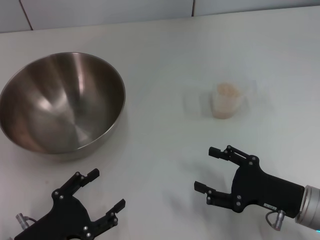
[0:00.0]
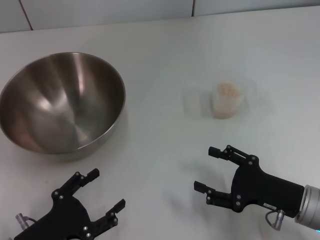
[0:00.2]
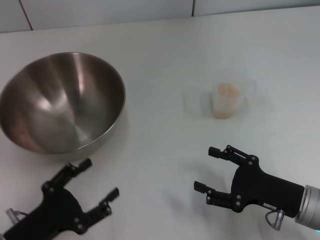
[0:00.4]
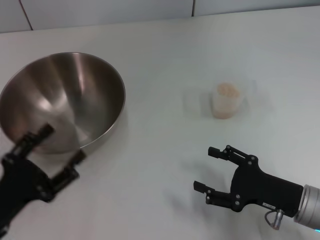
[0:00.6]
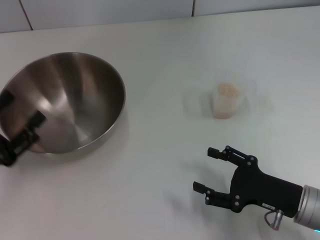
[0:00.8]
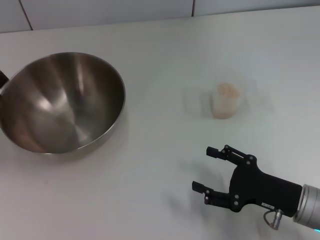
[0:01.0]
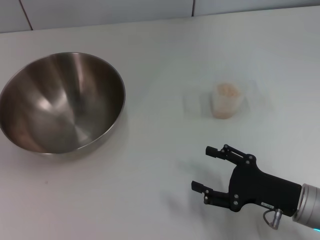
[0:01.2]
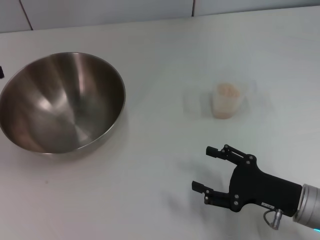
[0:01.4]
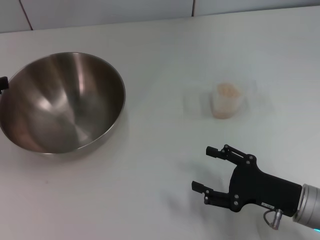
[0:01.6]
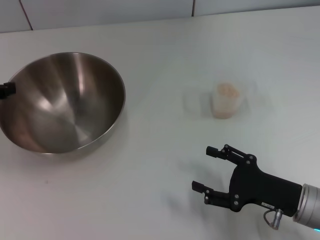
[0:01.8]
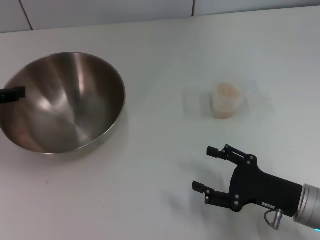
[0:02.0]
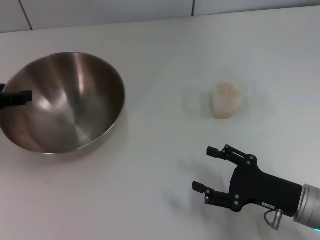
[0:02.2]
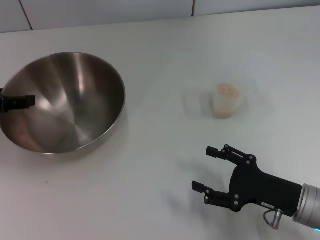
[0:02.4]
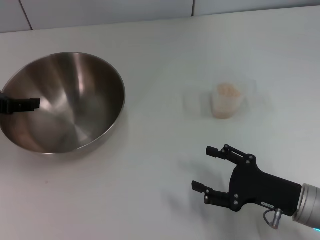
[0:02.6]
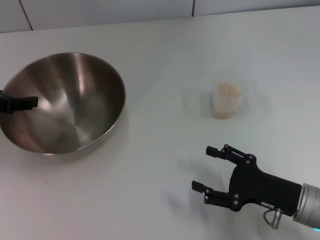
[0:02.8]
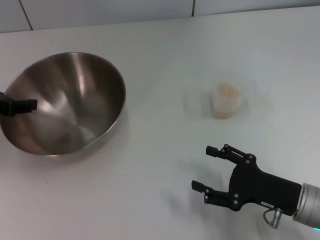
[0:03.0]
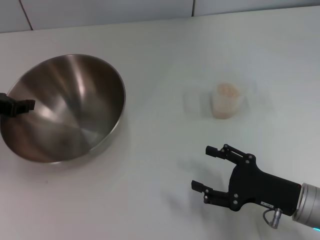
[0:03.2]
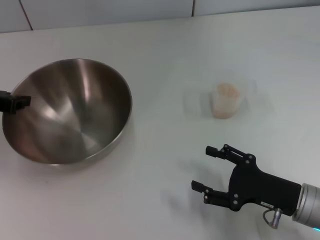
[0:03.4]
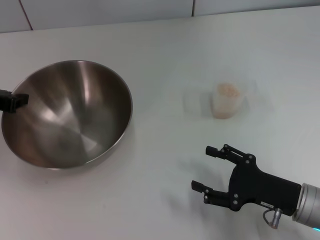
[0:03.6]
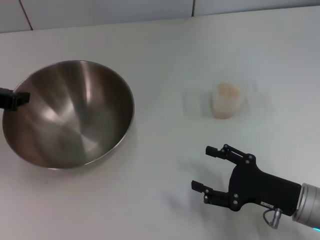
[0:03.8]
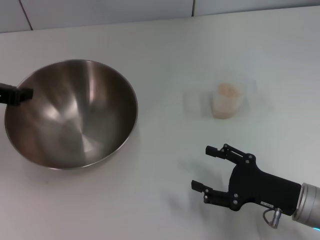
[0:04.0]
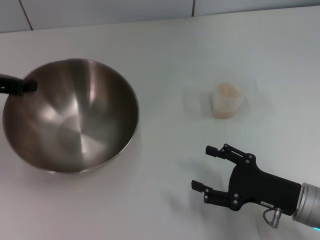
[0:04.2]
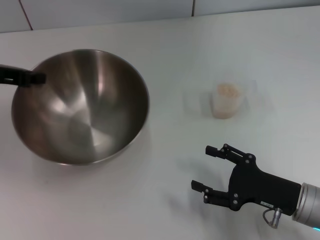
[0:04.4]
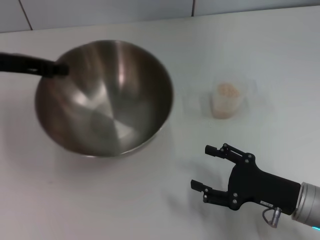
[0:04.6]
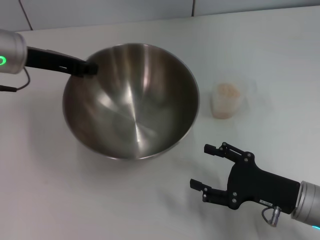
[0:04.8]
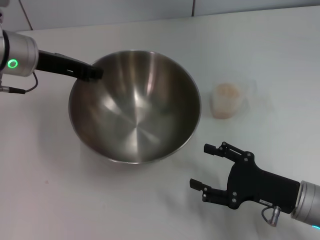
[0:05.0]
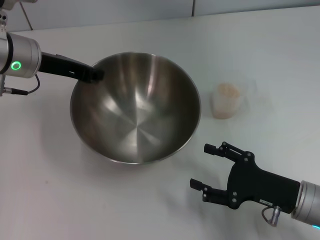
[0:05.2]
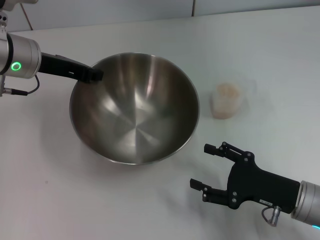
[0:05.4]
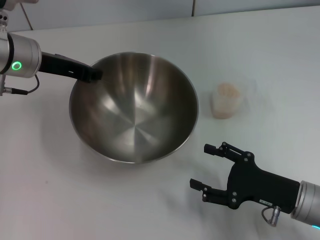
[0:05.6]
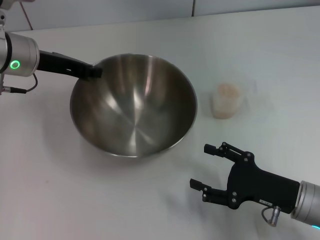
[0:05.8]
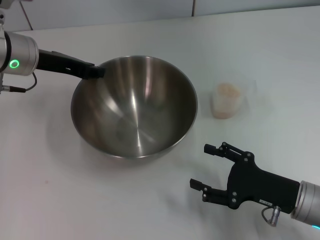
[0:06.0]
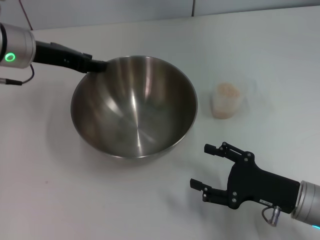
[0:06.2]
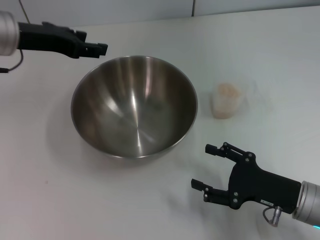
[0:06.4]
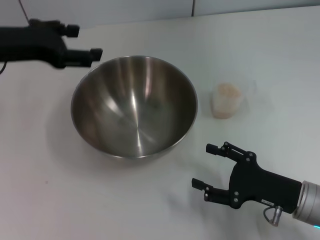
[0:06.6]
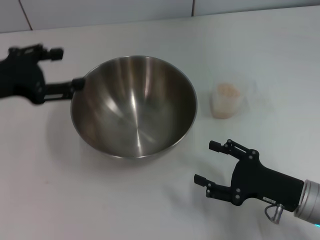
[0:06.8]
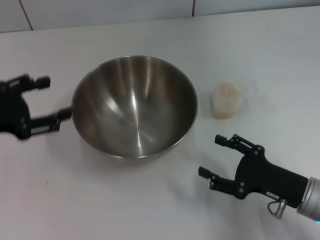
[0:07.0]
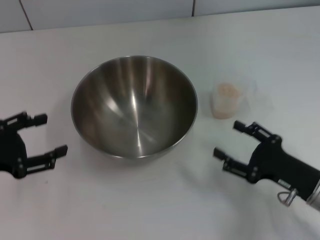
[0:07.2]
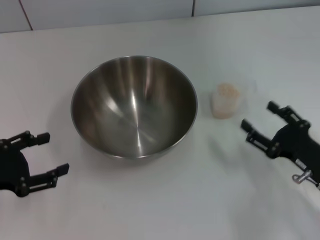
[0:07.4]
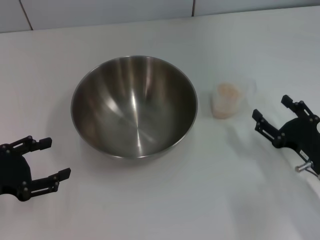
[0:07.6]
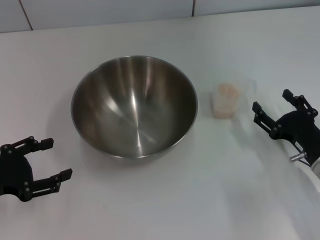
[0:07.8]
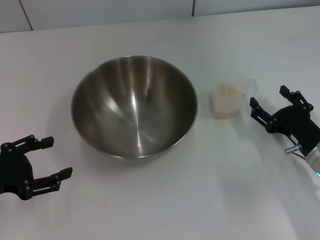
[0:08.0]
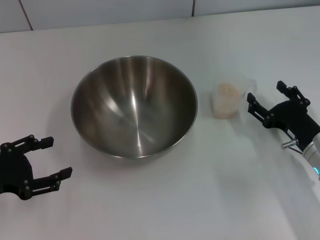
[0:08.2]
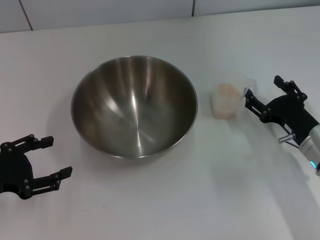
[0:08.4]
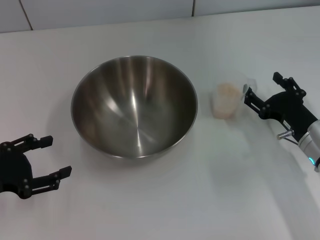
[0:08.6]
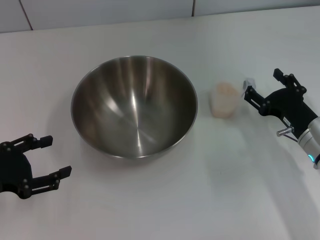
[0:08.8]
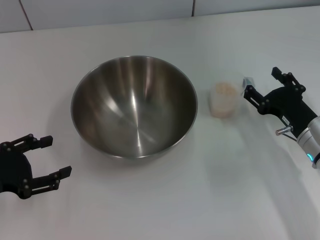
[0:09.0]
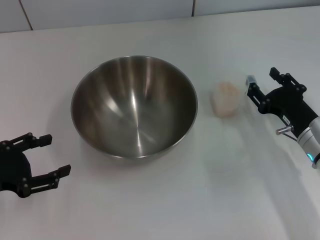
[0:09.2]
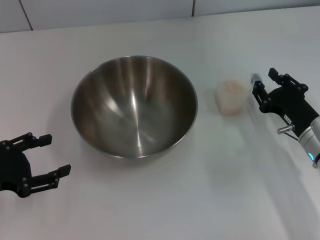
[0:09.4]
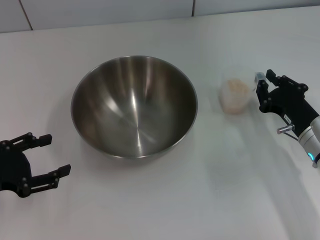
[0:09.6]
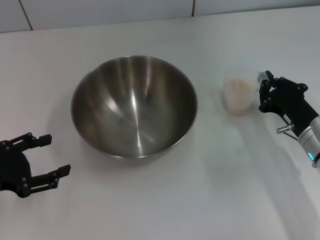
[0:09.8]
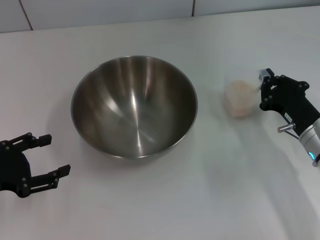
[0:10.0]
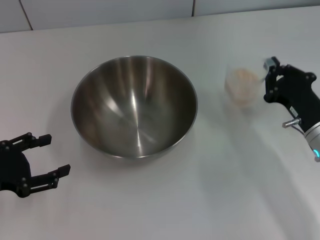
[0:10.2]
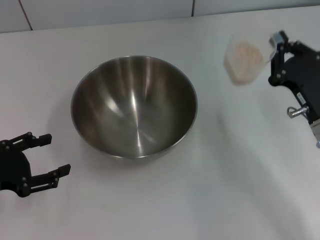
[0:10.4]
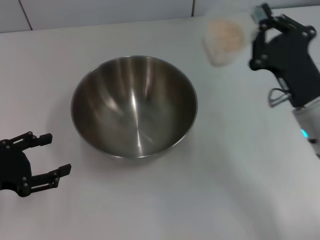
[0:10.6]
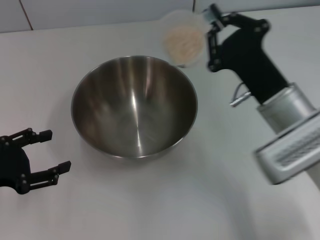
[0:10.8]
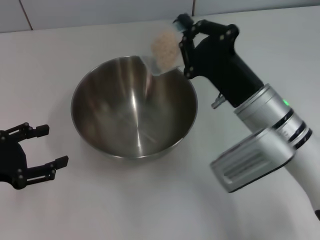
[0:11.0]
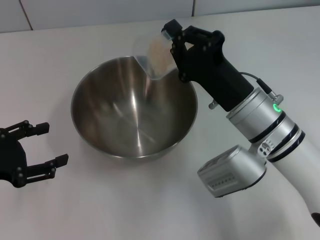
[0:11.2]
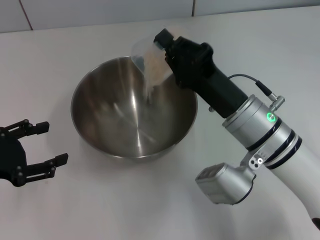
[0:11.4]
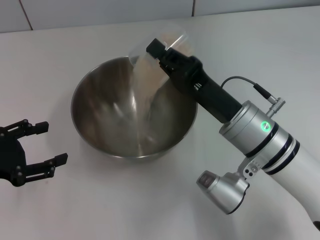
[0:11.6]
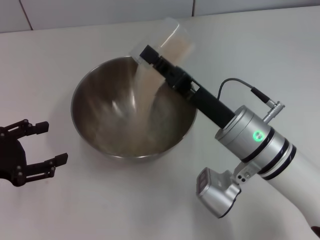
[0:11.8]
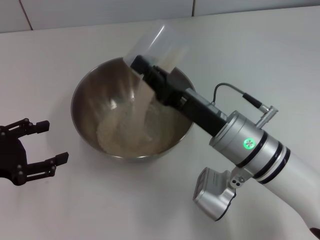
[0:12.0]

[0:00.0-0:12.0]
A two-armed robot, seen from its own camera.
Task of the whole recording: Place the bowl in the middle of the table with one hand and pour the rice from the grain cup into it with the other hand.
Step, 0:00.0 to 0:04.4: Pick up the bowl with the left gripper.
Step, 0:04.6 to 0:06.4: Place the bowl in the center of view with the left gripper.
Step, 0:06.6 to 0:10.6: Pick up the cup with rice in it with the right gripper.
0:00.0 to 0:01.6: The left gripper is displaced forward, upward and to the left by roughly 25 cm.
0:01.6 to 0:03.0: The left gripper shifts by some 5 cm.
0:03.0 to 0:04.4: The left gripper ends up roughly 5 cm from where it was, and closes its fingers.
0:04.4 to 0:06.0: The left gripper moves to the right, some 10 cm.
0:06.0 to 0:07.6: The left gripper is displaced backward, to the left and downward by about 25 cm, and opens its fingers.
0:07.6 to 0:09.0: The right gripper moves forward, some 5 cm.
0:09.0 to 0:10.4: The right gripper closes its fingers.
0:10.4 to 0:12.0: The right gripper is displaced to the left by some 15 cm.

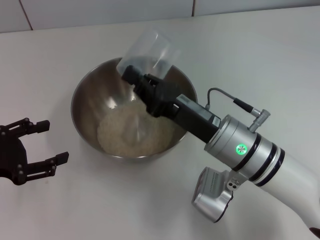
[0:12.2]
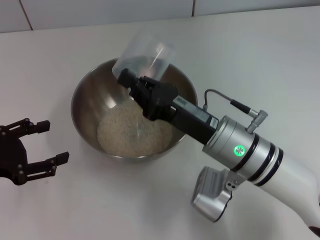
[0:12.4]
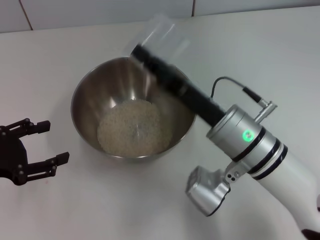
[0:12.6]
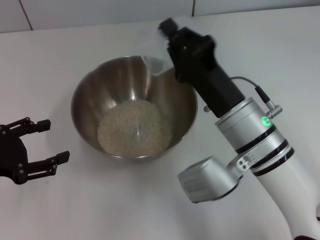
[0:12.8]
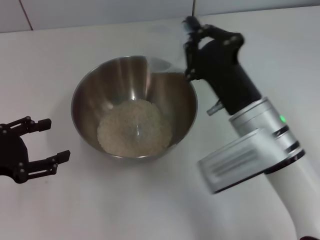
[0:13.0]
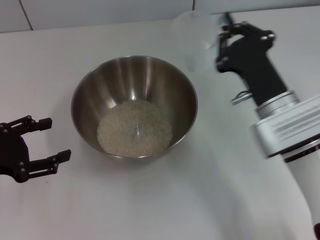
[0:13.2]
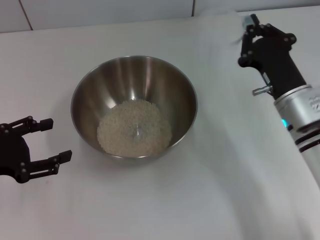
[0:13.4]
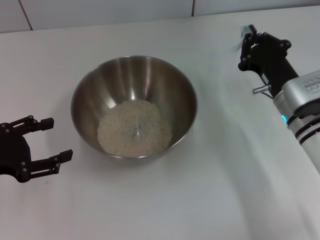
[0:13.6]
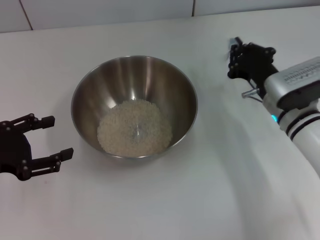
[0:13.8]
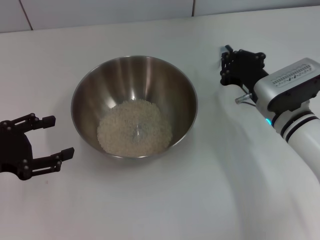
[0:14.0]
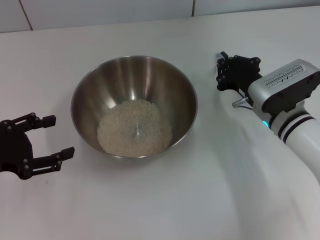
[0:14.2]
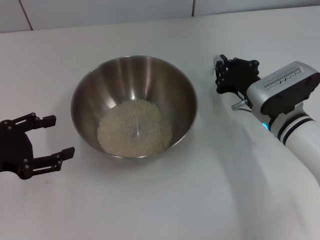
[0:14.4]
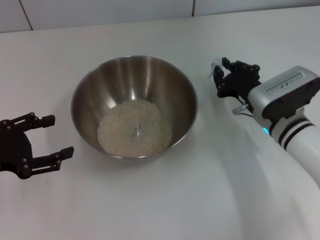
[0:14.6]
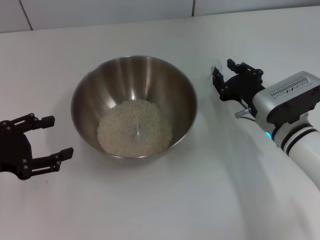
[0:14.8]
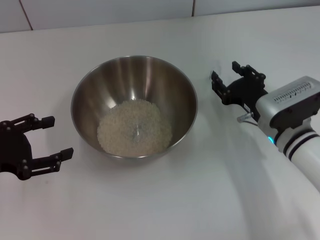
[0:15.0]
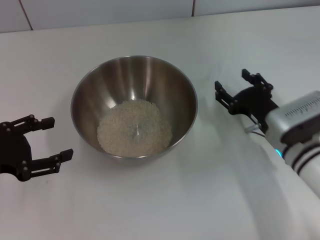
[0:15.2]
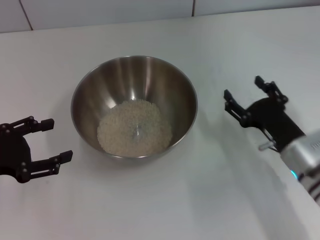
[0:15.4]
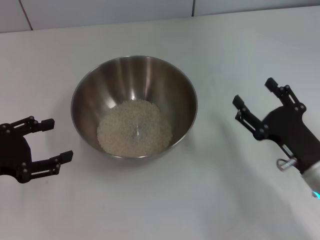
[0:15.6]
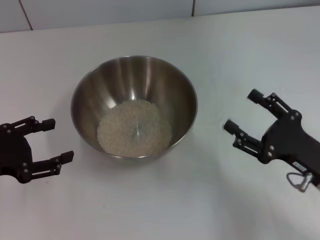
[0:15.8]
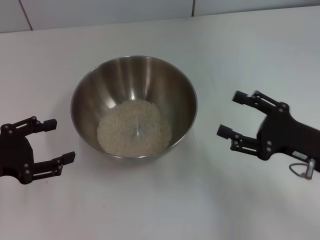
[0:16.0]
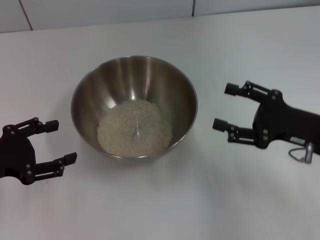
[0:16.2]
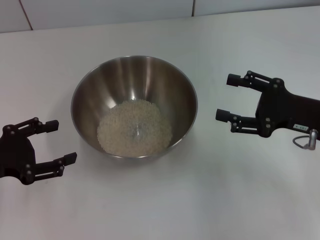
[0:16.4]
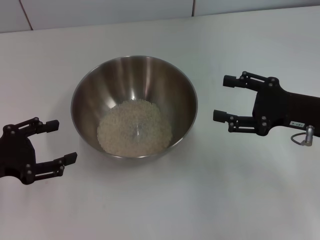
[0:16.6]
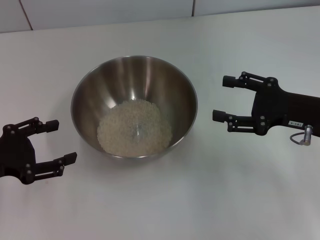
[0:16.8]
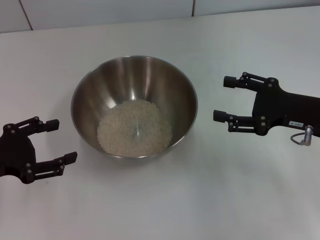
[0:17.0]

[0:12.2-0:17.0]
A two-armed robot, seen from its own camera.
Task of the whole recording: Place the bowl in the middle of the table with one hand and pour the rice from the grain cup into it with the other hand.
Step, 0:13.0 to 0:15.4: Place the cup on the table with the right gripper.
0:12.2 to 0:13.8: The right gripper is displaced to the right and forward by roughly 10 cm.
0:13.8 to 0:15.4: The right gripper is displaced backward by roughly 10 cm, and opens.
0:15.4 to 0:17.0: The right gripper shifts some 10 cm upward and to the right.

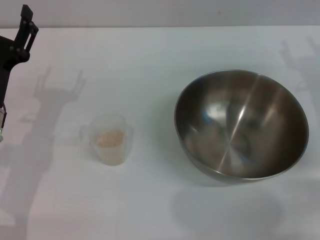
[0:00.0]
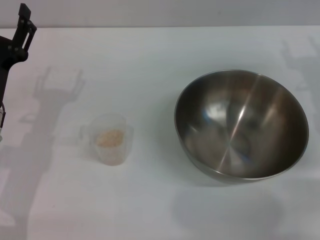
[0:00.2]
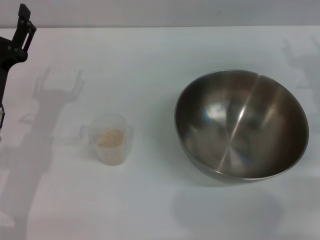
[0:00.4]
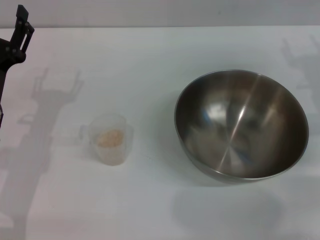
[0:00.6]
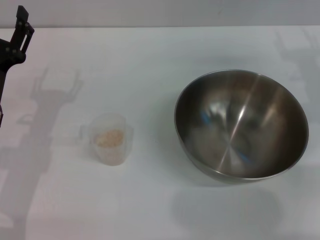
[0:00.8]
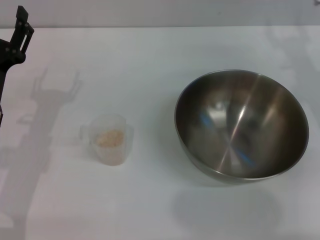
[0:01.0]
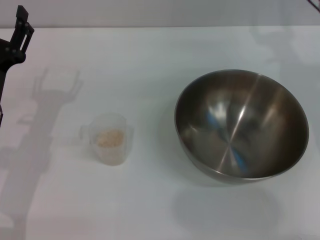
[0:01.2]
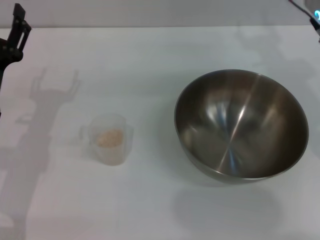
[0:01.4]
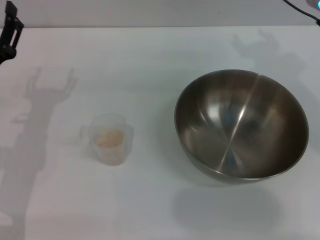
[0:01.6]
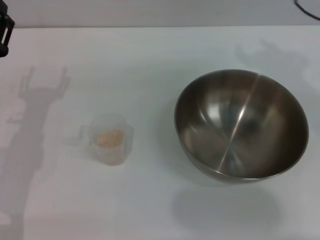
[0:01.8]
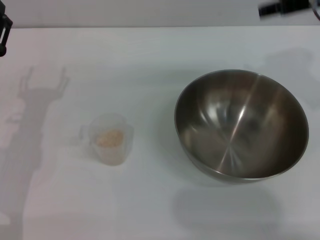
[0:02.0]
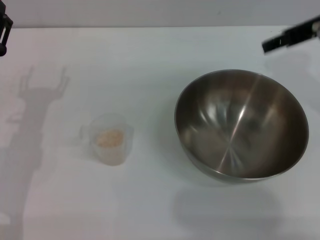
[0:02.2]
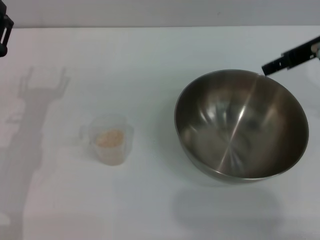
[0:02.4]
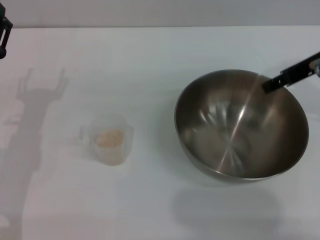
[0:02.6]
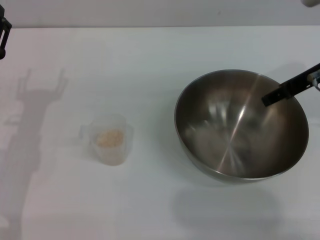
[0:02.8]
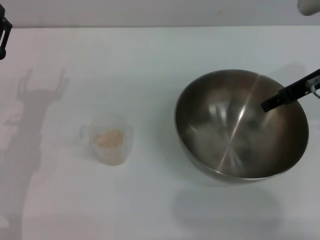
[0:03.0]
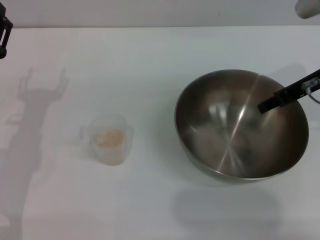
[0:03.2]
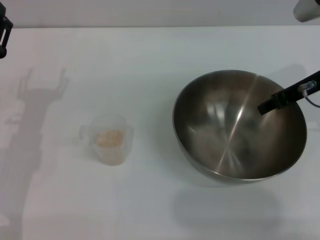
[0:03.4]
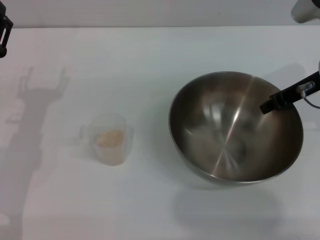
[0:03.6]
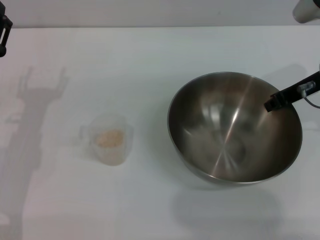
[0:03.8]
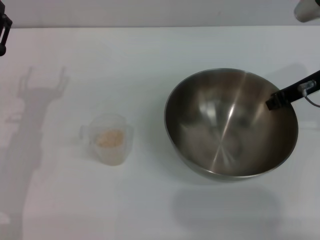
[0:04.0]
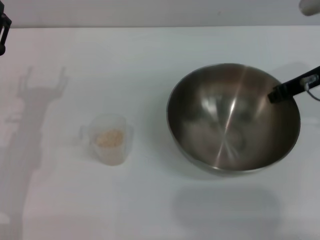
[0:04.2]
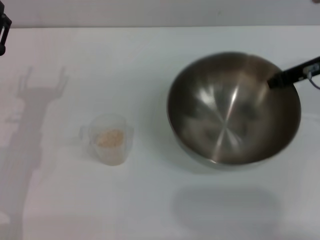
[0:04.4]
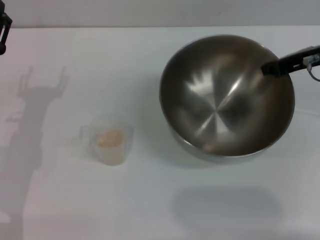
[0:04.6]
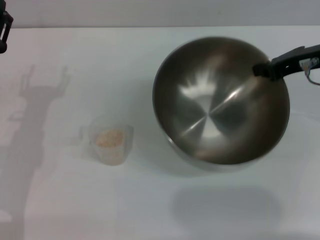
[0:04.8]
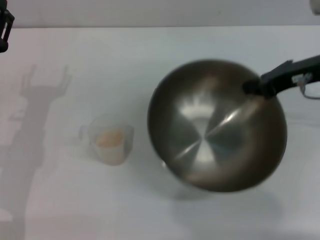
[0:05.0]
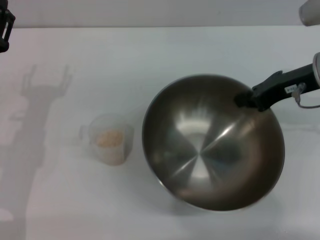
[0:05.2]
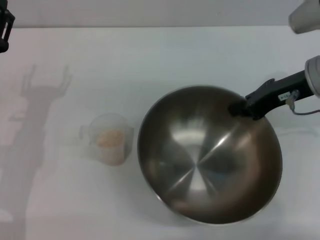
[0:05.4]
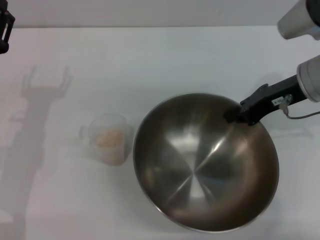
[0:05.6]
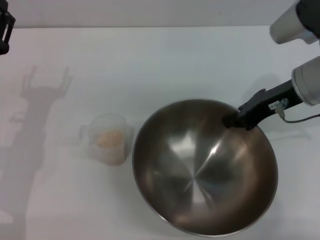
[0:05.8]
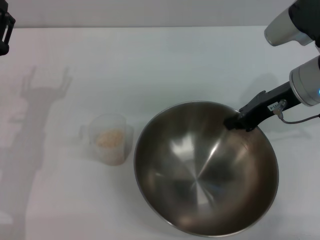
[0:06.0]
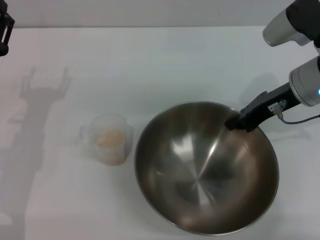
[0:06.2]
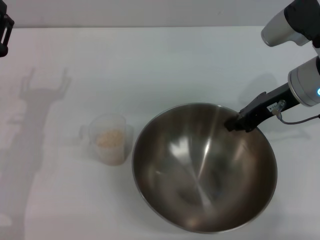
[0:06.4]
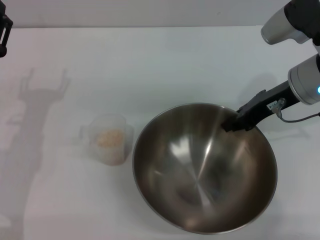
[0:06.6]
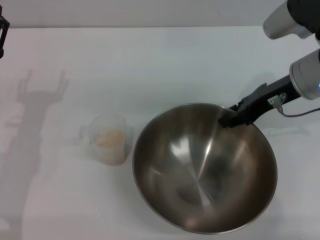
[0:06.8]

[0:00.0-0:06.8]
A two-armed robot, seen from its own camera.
Task of the whole recording: Place the bowl in the middle of the table with one hand and pour the rice from the grain cup into it with the other hand.
Step, 0:00.0 to 0:04.6: Pick up the bowl with the right gripper.
0:00.0 to 0:01.4: The right gripper is displaced upward and to the left by about 10 cm.
0:02.8 to 0:04.0: The right gripper closes up.
0:05.4 to 0:06.8: The grippers move only a little.
